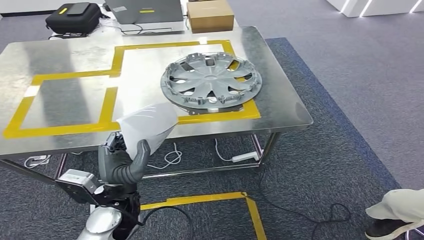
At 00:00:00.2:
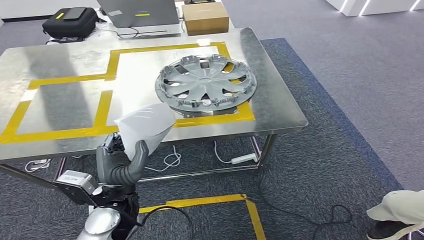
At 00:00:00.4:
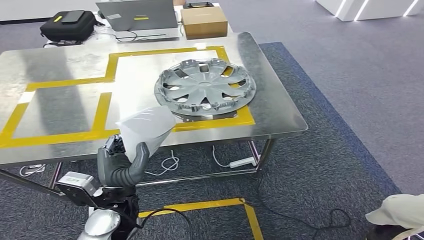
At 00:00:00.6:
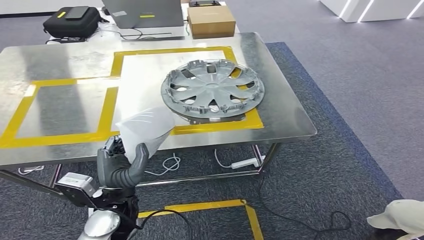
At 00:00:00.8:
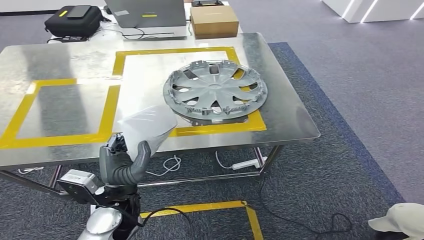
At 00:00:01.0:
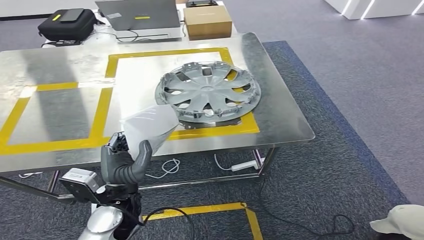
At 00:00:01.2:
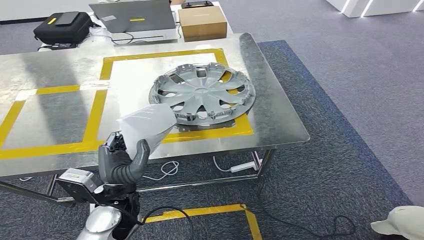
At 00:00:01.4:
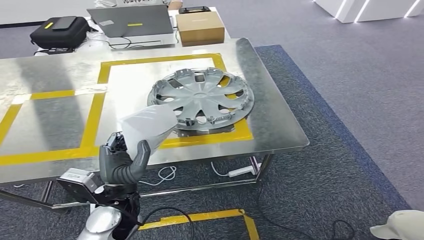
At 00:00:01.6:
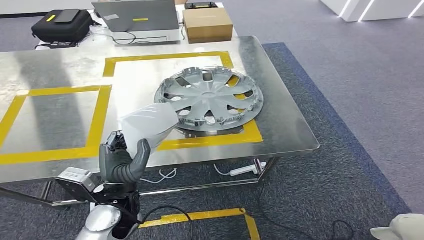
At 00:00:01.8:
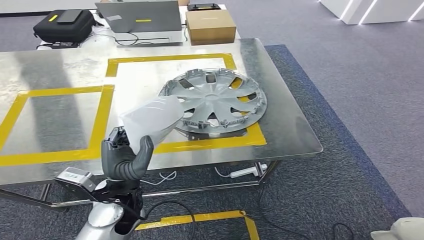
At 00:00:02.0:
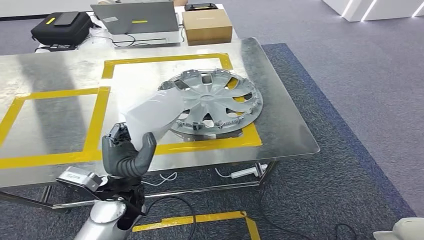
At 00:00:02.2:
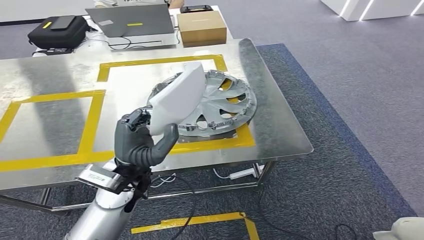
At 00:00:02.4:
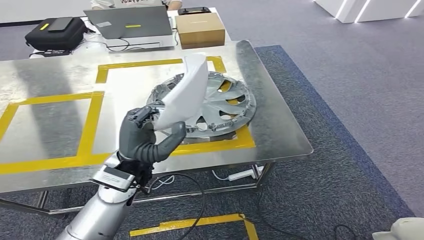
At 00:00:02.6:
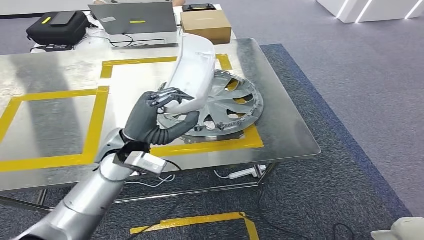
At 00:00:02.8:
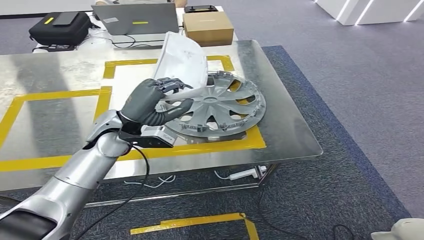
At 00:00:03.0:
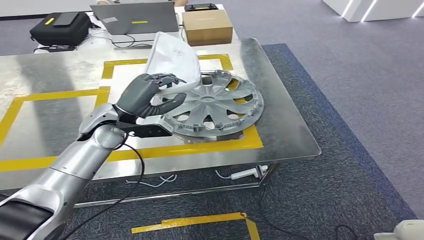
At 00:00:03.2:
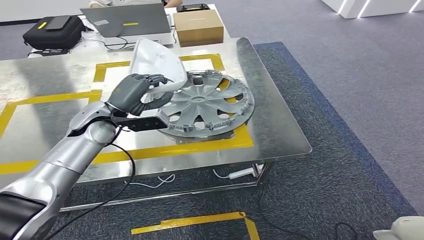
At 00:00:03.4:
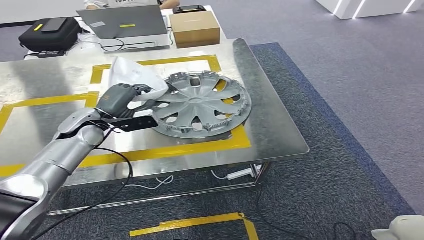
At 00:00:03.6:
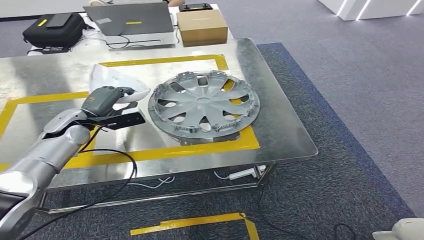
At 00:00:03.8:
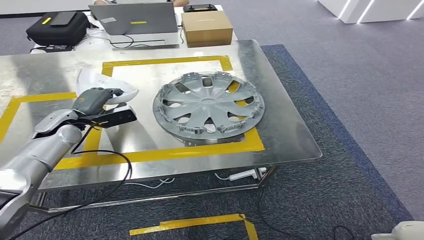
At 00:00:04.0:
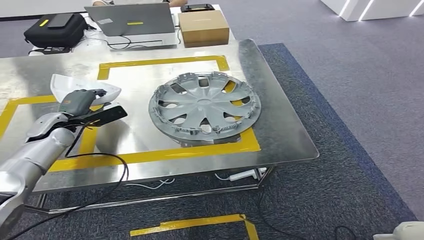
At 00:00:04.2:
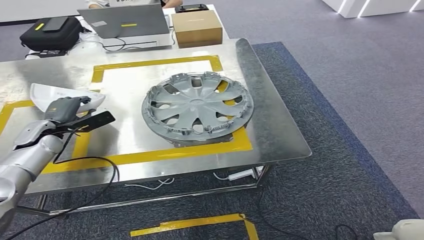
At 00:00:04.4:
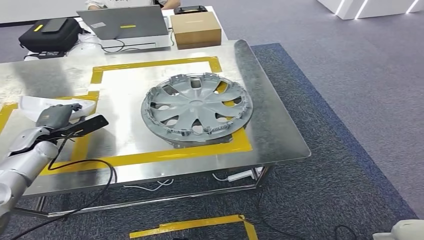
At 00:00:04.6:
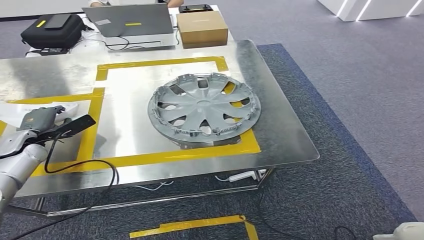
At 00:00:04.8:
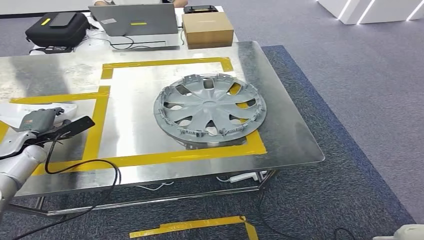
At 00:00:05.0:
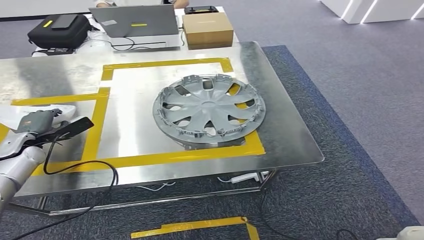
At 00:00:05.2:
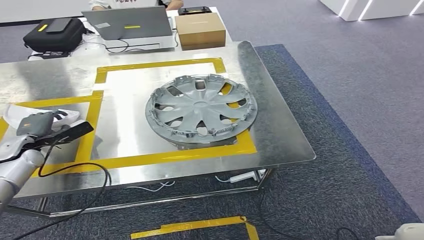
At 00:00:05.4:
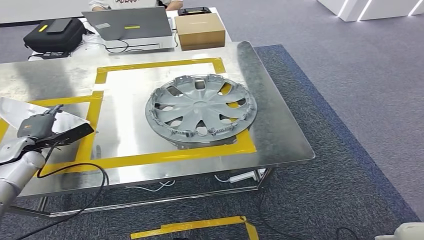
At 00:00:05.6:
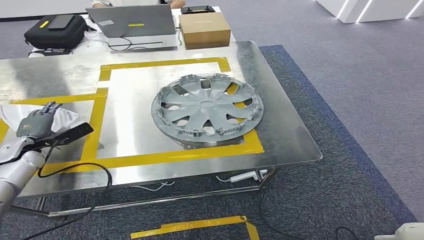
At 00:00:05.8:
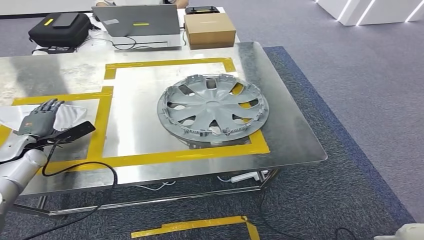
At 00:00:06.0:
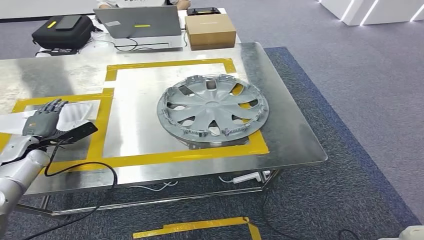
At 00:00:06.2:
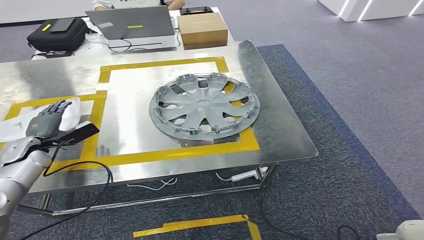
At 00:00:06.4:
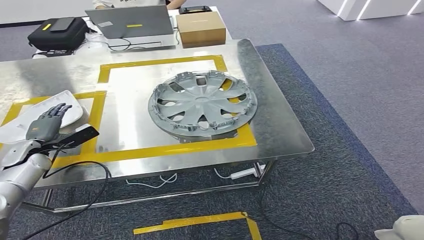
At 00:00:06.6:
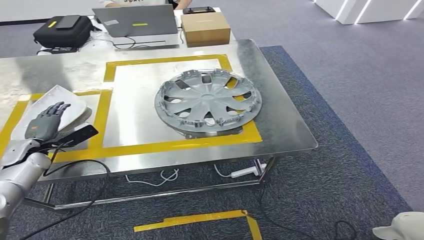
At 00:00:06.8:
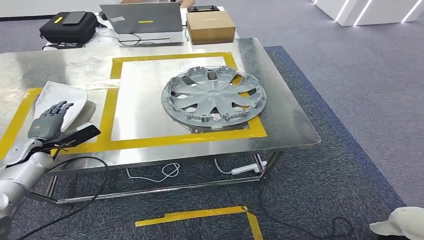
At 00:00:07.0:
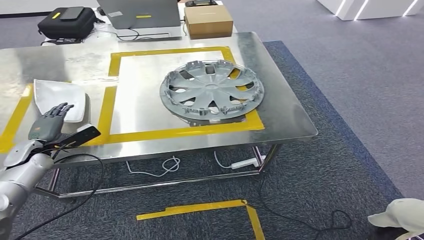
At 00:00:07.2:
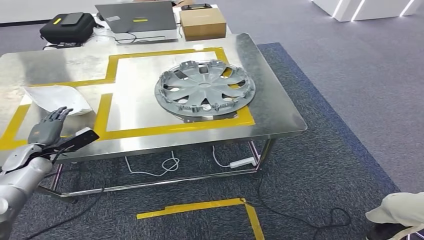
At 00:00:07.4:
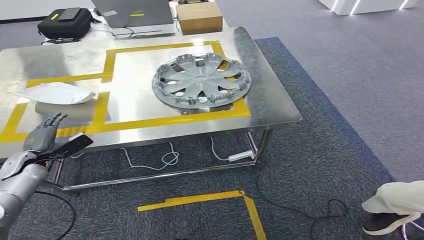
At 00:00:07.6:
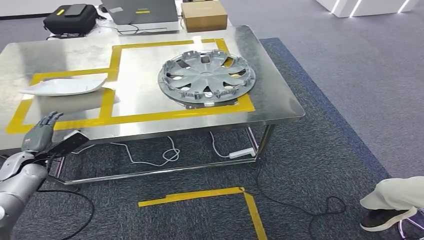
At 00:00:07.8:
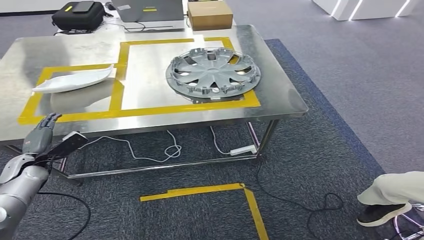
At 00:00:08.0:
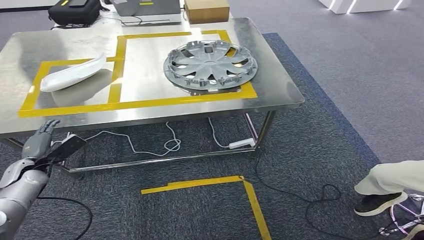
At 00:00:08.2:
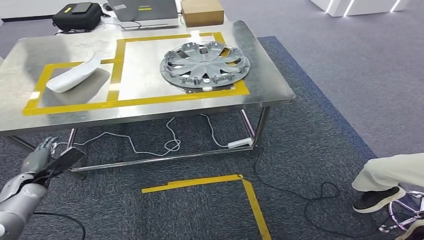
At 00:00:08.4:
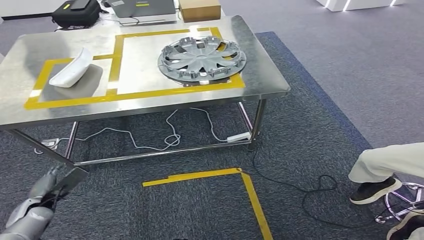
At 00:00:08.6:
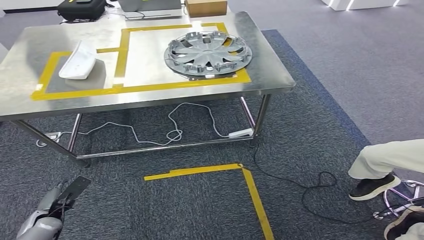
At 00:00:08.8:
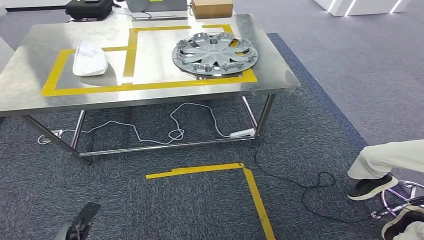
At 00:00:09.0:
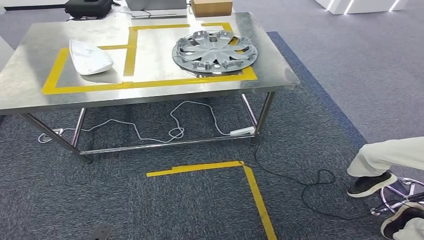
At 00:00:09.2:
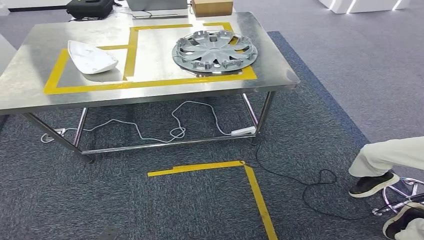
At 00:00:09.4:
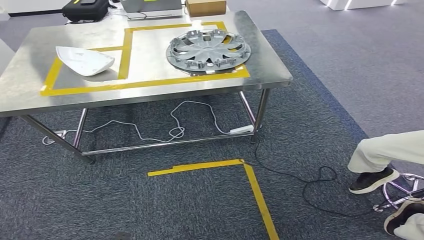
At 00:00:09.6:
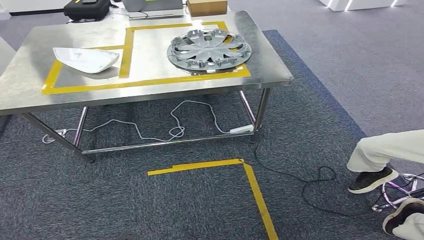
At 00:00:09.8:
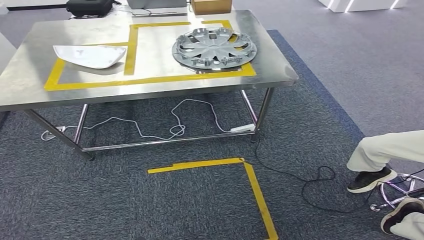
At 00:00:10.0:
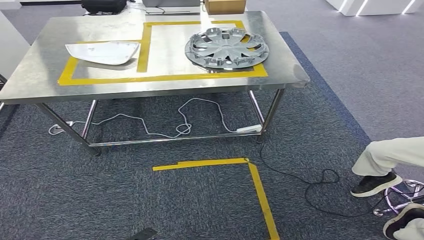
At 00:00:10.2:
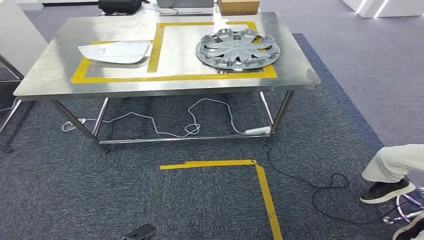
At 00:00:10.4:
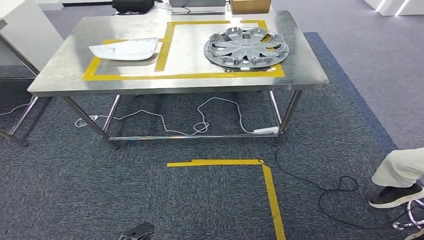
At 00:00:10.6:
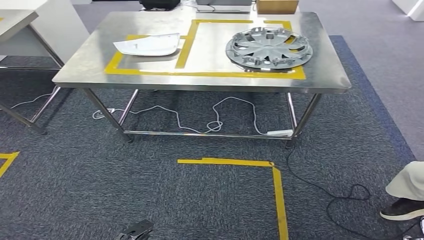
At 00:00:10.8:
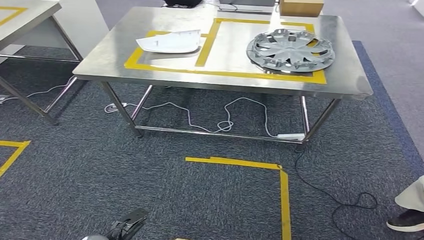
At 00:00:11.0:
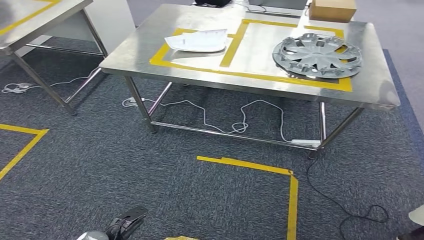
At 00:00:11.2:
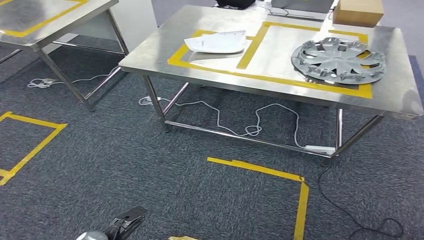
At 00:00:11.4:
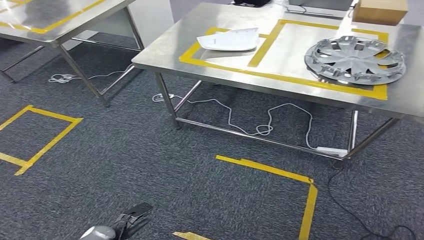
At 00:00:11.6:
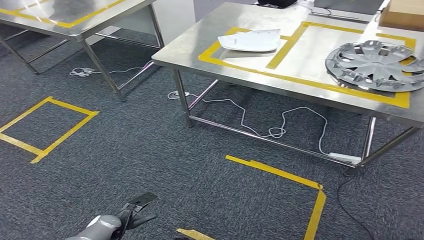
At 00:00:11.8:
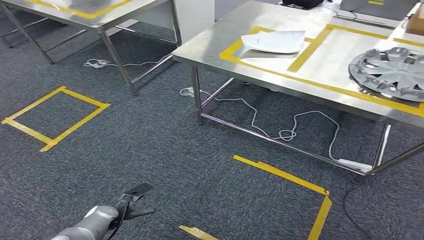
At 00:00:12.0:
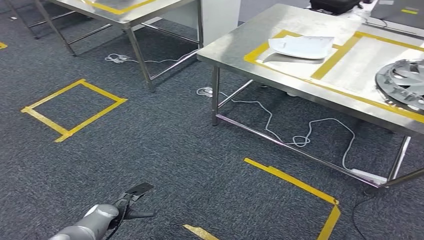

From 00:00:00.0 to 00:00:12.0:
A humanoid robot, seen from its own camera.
Step, from 00:00:00.2 to 00:00:07.0: Insert the small component into the corresponding slot on the workbench.

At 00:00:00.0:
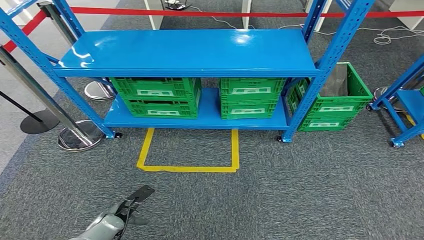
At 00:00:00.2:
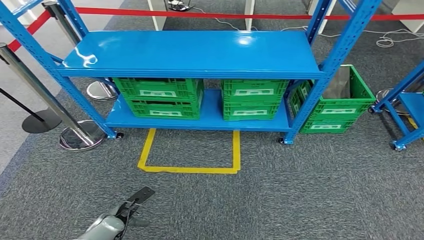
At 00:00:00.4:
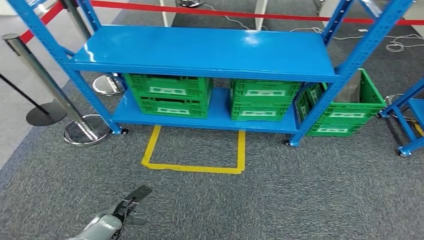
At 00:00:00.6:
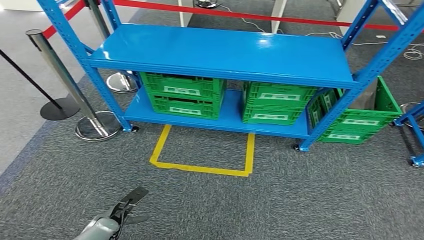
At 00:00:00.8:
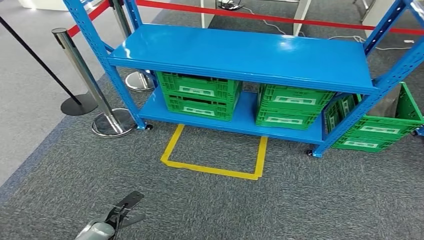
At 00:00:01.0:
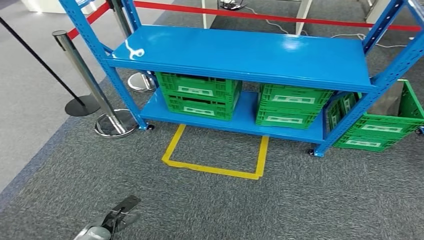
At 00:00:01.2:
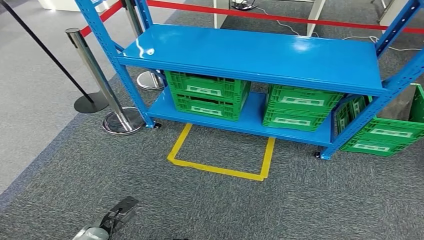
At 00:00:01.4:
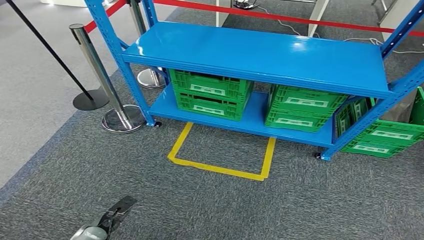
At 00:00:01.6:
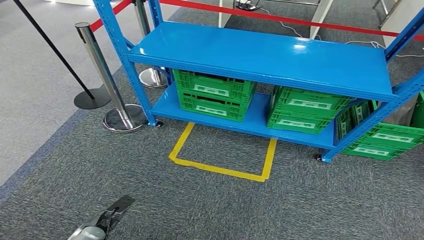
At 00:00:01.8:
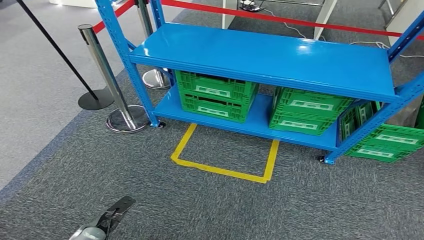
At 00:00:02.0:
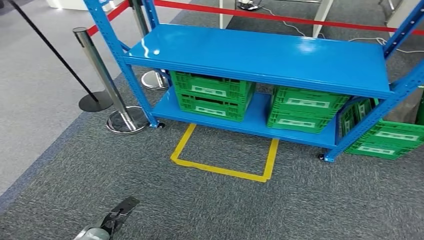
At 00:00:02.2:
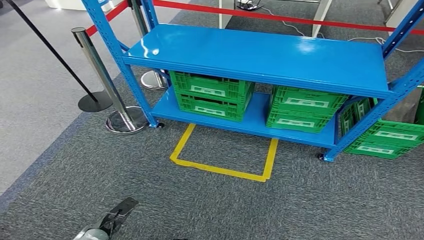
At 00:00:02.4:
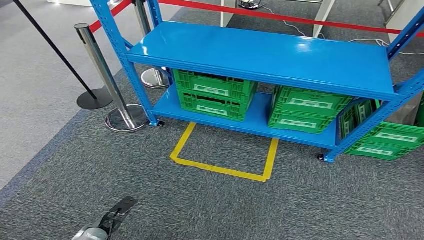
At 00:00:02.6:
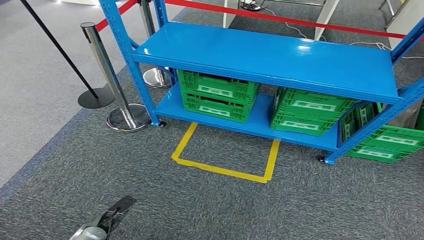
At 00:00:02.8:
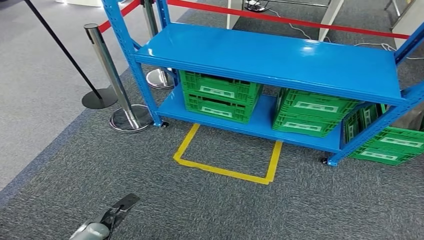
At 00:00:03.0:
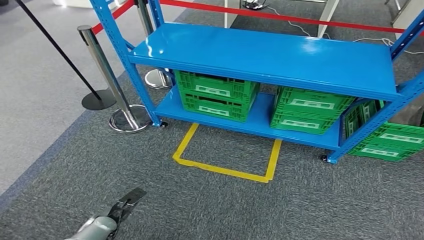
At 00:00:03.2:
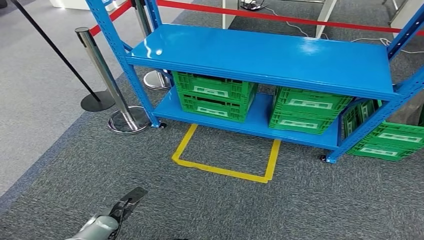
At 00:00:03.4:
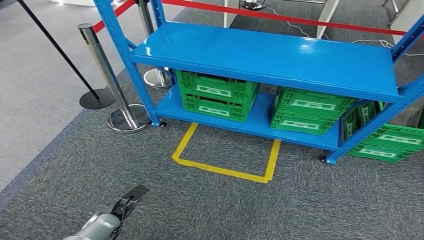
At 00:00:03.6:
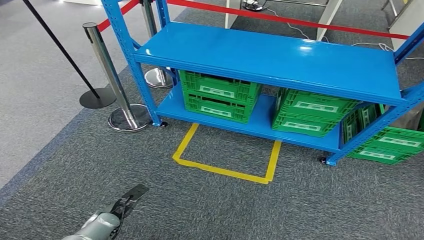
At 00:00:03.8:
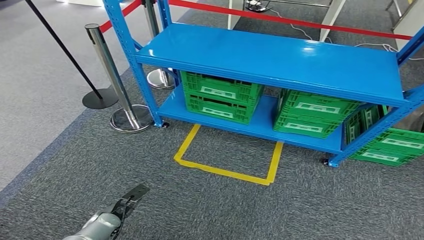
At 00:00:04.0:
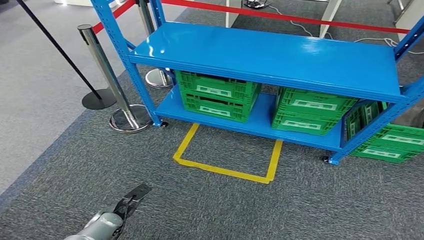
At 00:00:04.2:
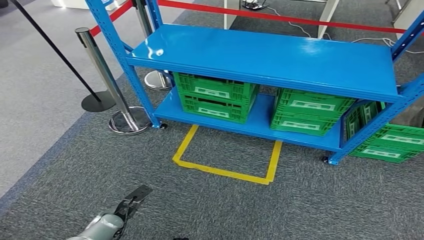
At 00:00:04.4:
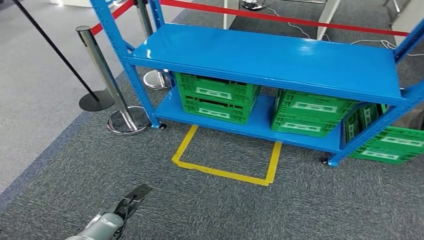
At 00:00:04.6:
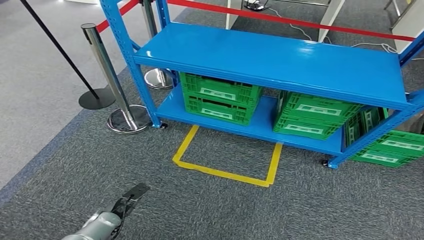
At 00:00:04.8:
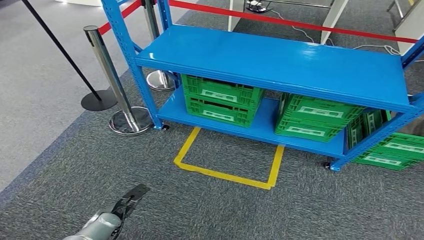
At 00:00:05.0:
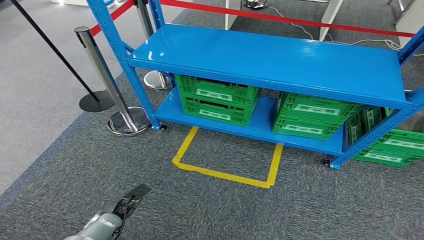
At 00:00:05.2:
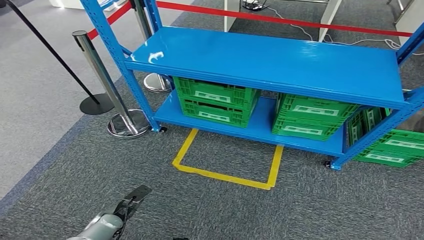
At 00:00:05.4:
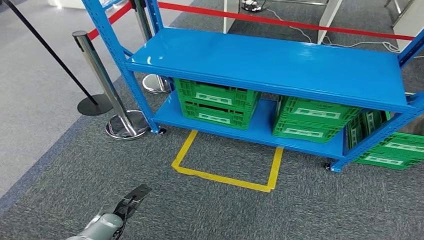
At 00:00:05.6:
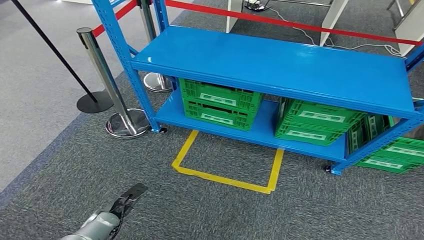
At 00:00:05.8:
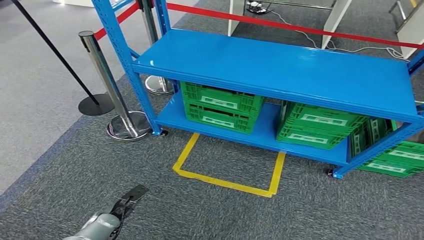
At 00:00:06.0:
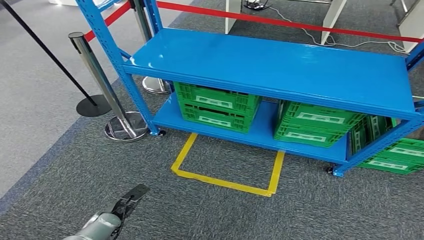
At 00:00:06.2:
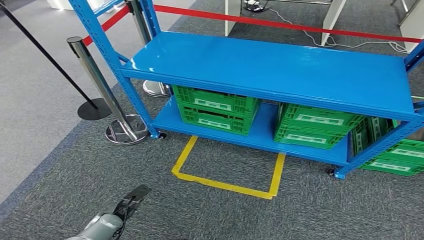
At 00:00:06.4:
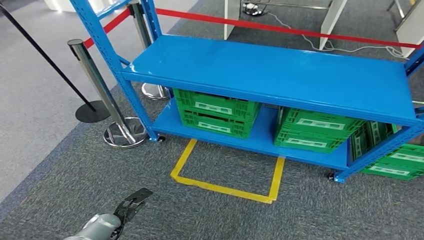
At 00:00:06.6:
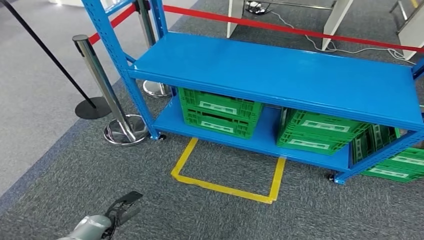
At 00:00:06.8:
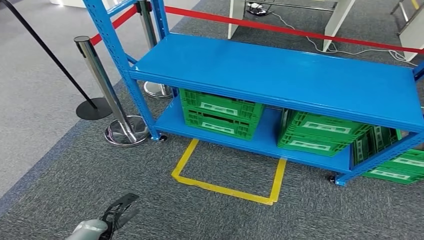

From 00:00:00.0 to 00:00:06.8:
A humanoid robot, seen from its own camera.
Step, from 00:00:00.0 to 00:00:06.8: Return to the initial position at the workbench.
From 00:00:02.8 to 00:00:04.0: The hands stay close to where they were, moving slightly.
